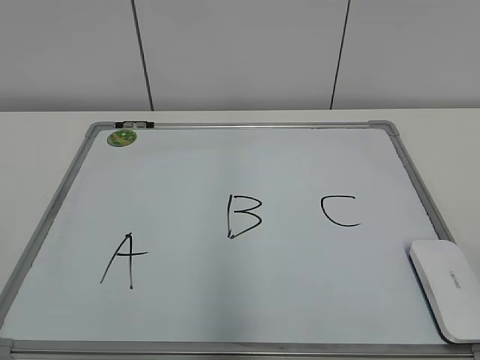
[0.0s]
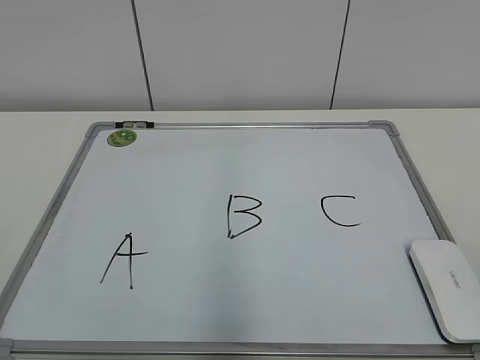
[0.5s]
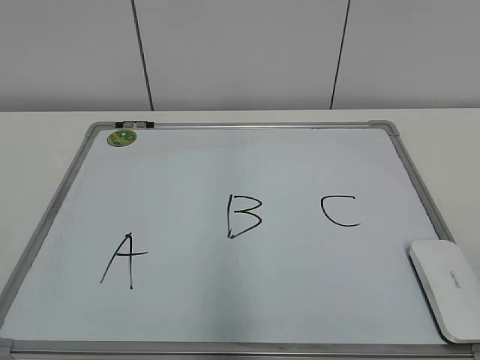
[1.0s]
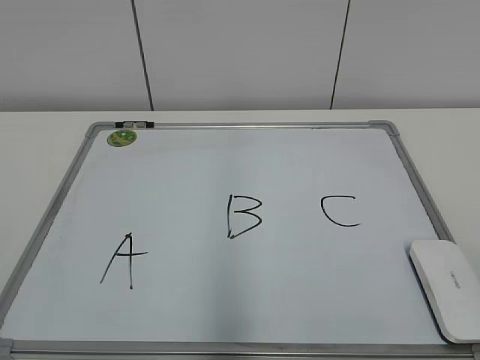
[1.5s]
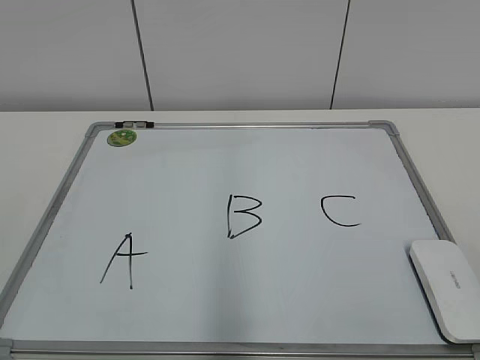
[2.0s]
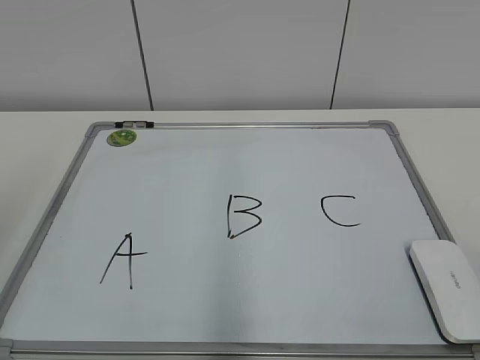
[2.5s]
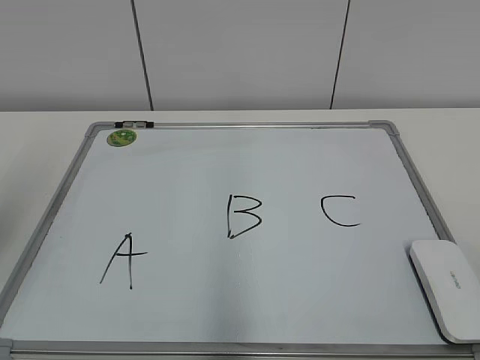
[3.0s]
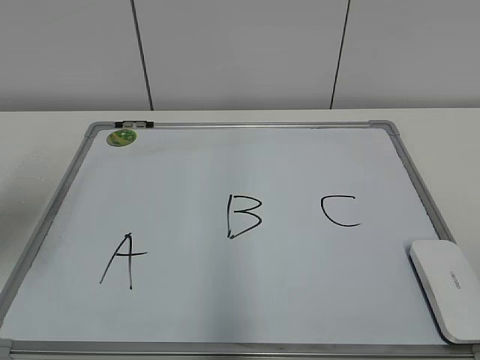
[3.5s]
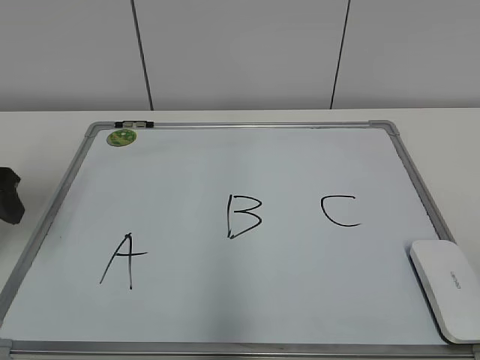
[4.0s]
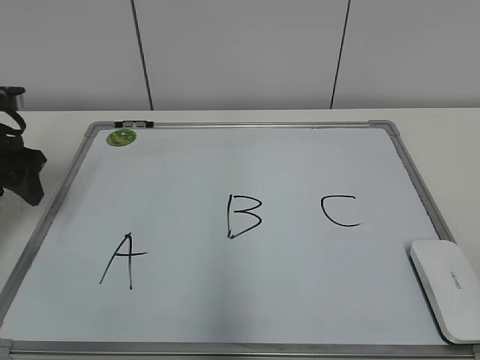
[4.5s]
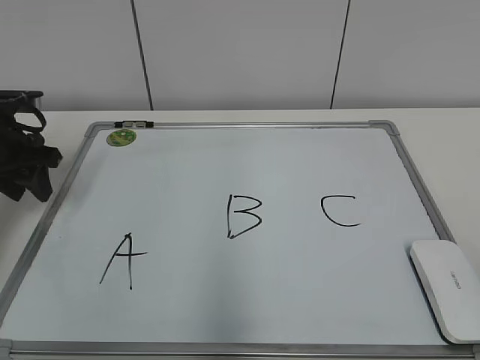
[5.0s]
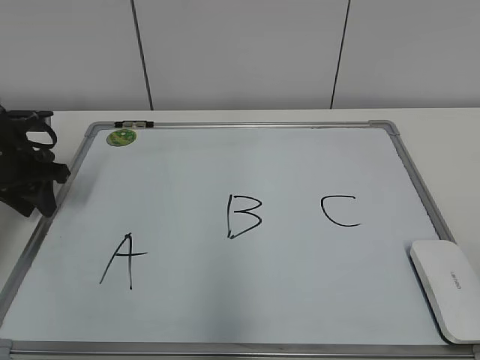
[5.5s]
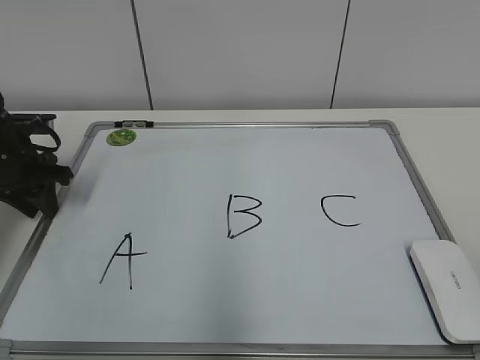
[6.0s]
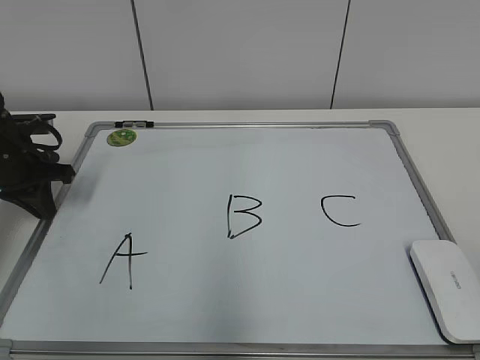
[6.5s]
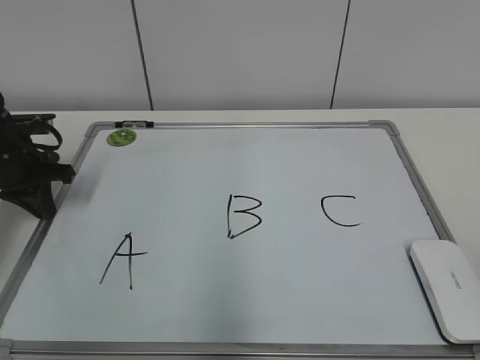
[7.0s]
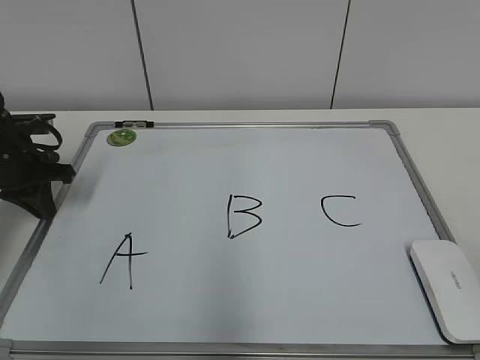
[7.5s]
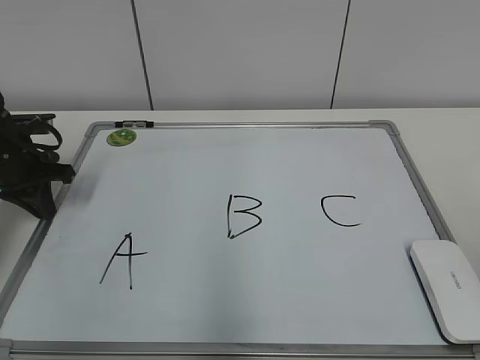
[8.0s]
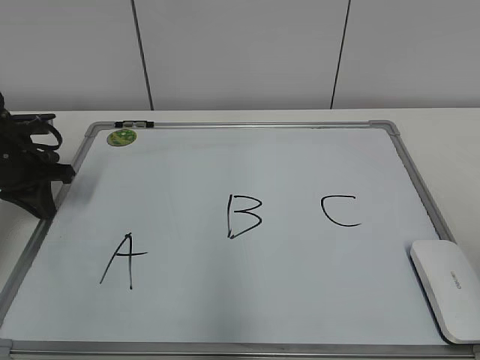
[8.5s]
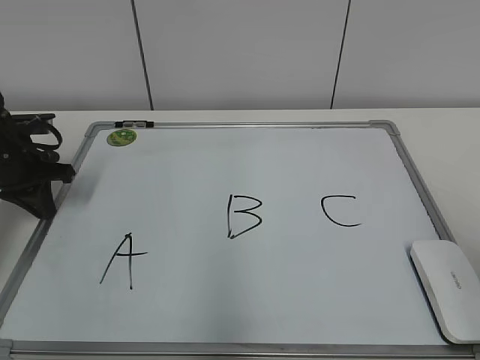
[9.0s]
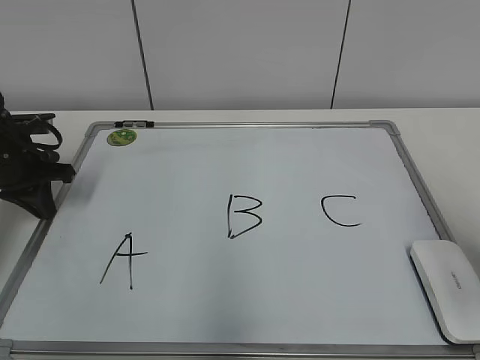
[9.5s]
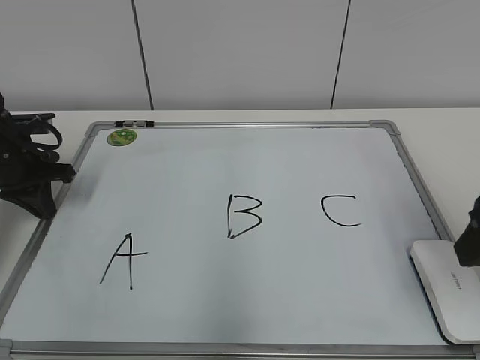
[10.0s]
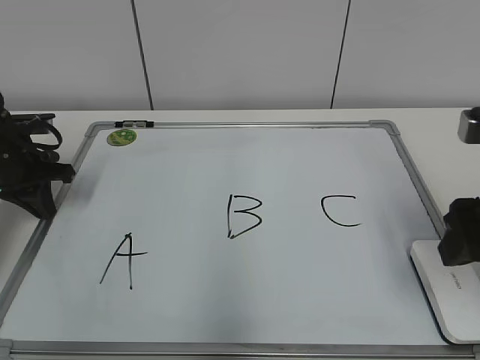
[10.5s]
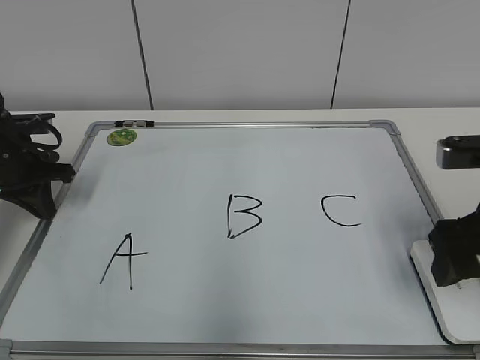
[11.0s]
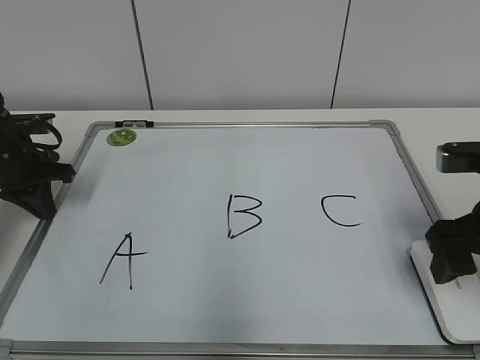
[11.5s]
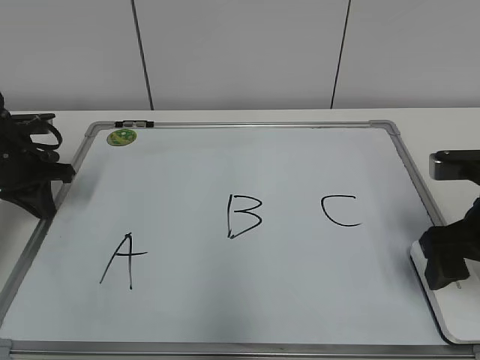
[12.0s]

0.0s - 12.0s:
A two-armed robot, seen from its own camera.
Task of the whole recording: pick up the eraser on the blackboard and erase the letter "B".
Step, 0.0s - 6.5s: Hold the drawing board steady with your left hand.
2.0s - 4.0s: The left gripper goes about 30 cm forward.
4.0s - 6.0s: The left gripper moves forward and downward, some 15 cm, and closes its fingers.
8.0s - 10.0s: The right gripper heads forward, covering roughly 15 cm.
10.0s - 12.0s: The right gripper is displaced downward and forward by roughly 10 cm.

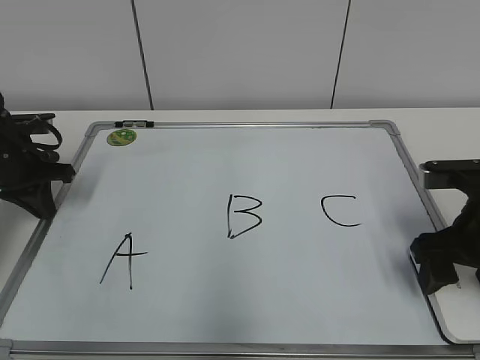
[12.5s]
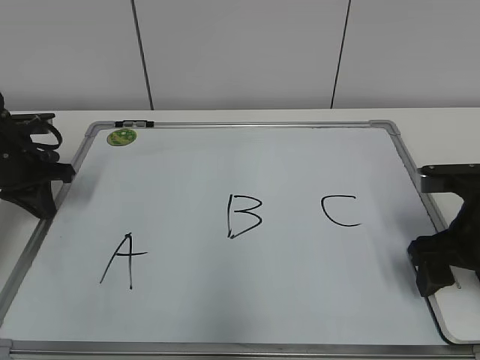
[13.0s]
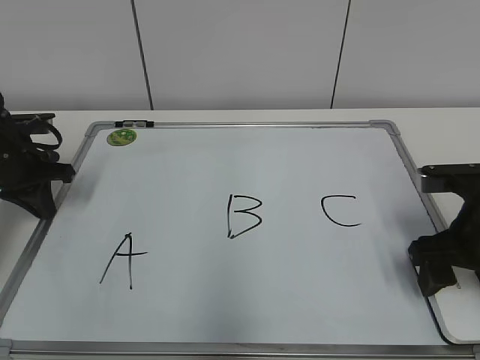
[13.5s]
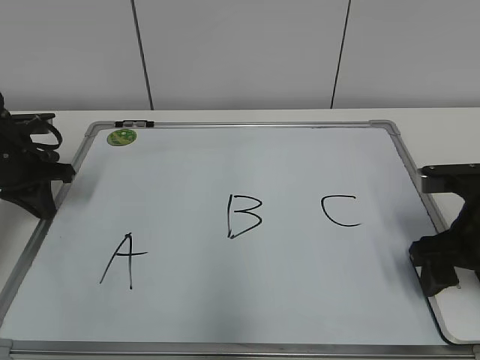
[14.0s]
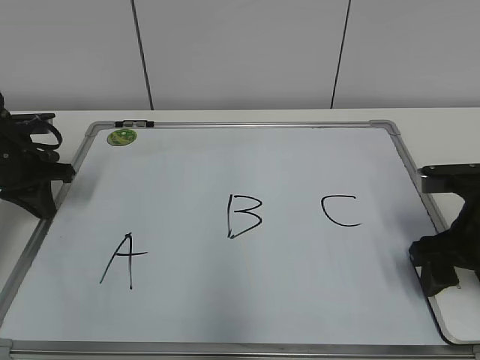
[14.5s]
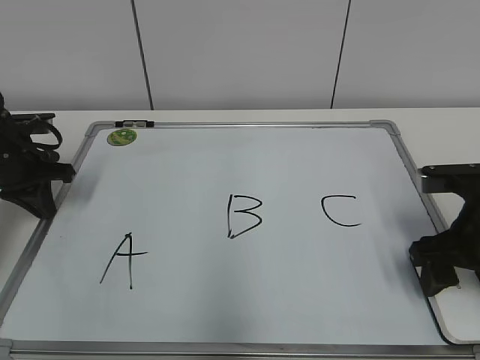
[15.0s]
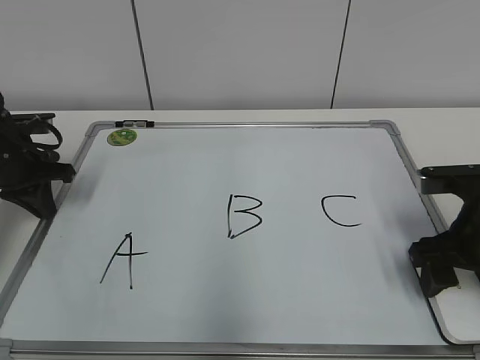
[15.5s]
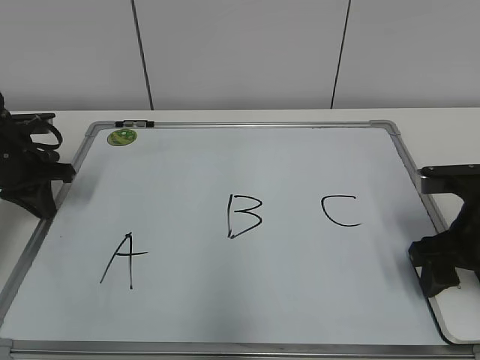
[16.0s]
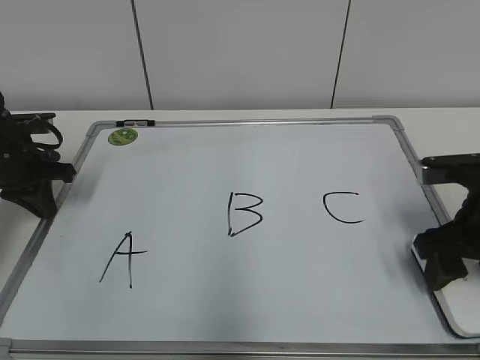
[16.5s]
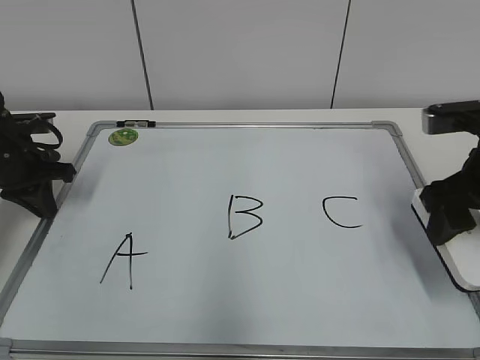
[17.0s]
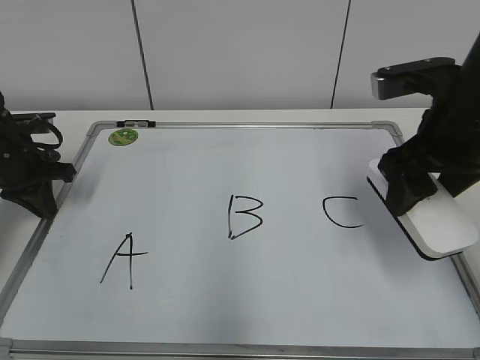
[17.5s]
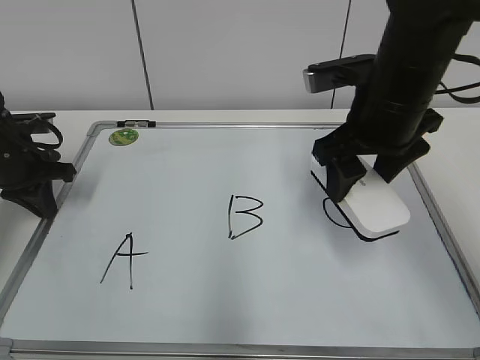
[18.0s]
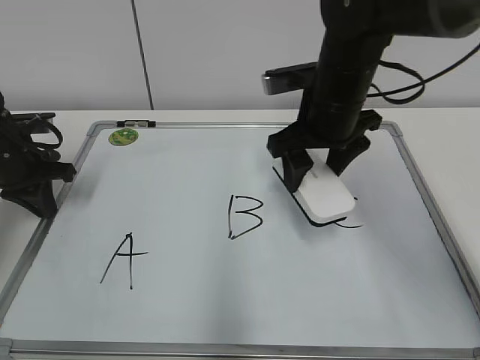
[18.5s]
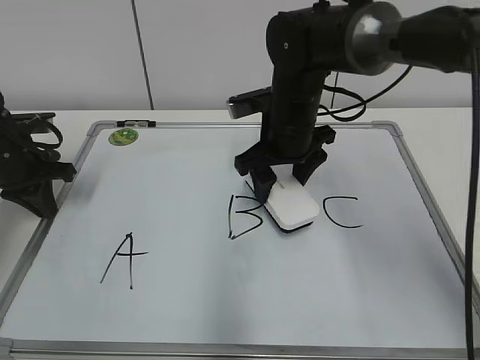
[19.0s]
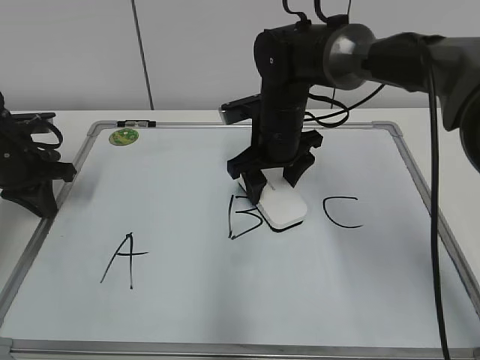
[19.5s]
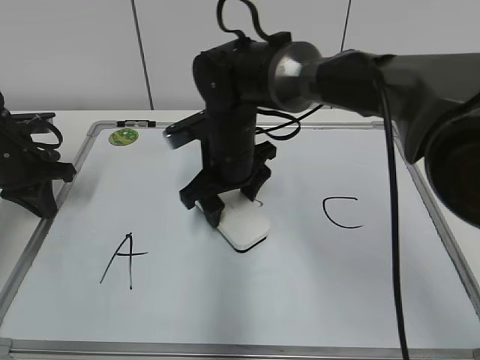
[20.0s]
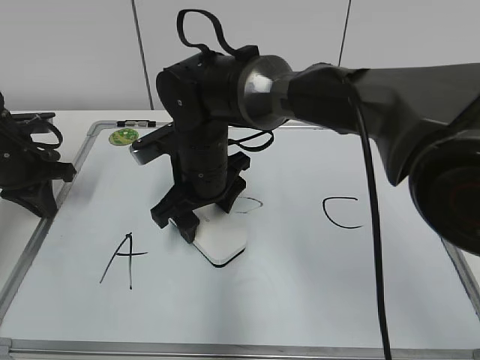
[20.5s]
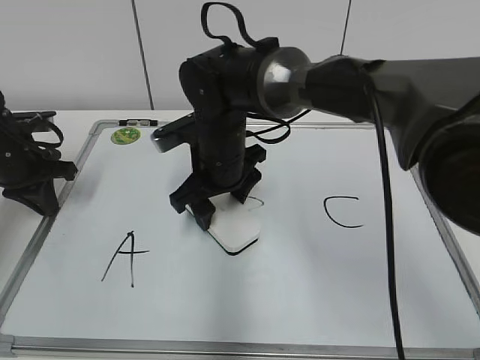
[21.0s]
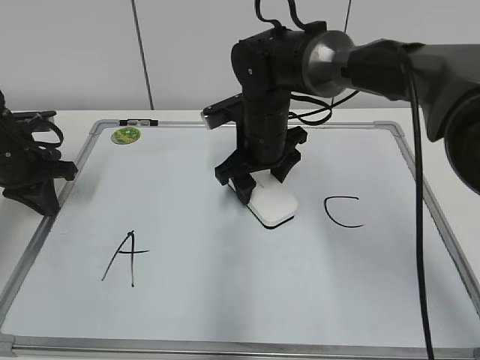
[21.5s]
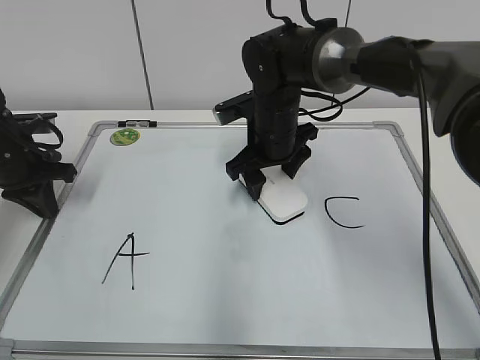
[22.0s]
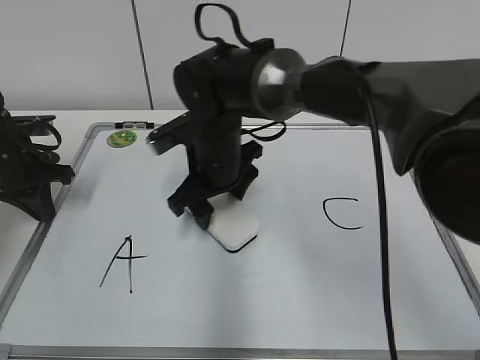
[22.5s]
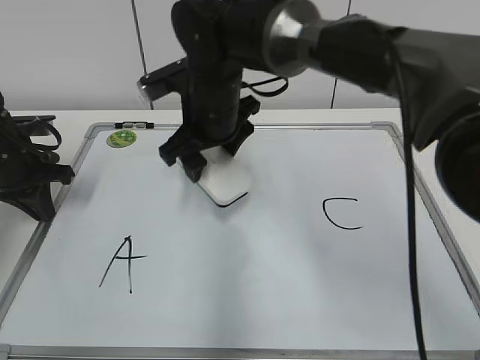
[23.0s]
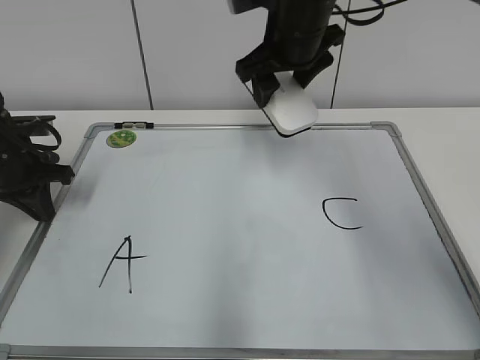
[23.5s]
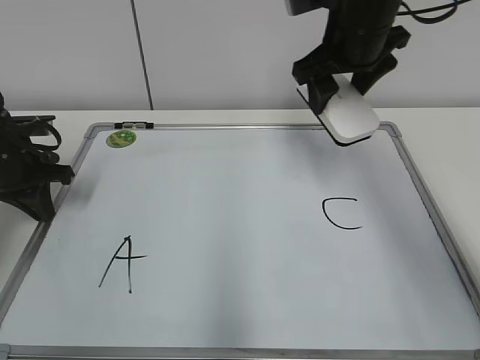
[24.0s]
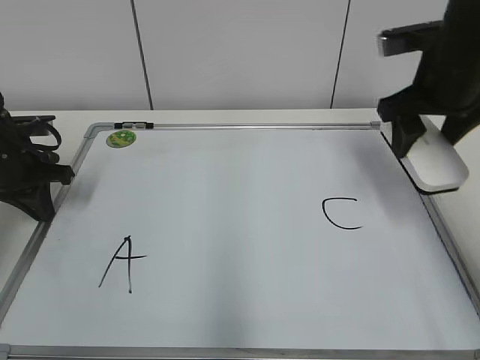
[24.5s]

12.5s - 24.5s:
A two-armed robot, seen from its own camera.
Task of the whole recording: pick up the eraser on the blackboard and erase the letter "B".
Step, 16.5s - 22.0s: Erase the letter B with your right hand.
12.5s - 16.5s: Both grippers stay put.
16.5s - 18.5s: The right gripper travels to the left, forward and upward by approximately 20 cm.
18.5s - 20.5s: The right gripper shifts roughly 15 cm to the left and downward.
20.5s - 22.5s: The right gripper reaches roughly 10 cm to the right, then returns.
22.5s - 24.5s: The right gripper heads to the right and upward, covering approximately 25 cm.

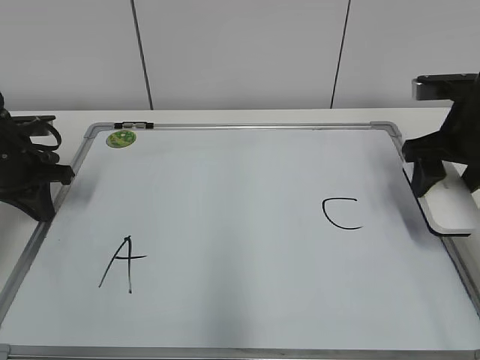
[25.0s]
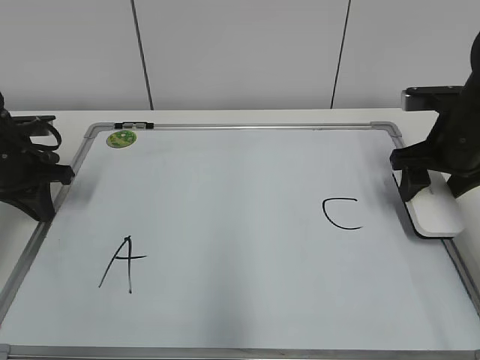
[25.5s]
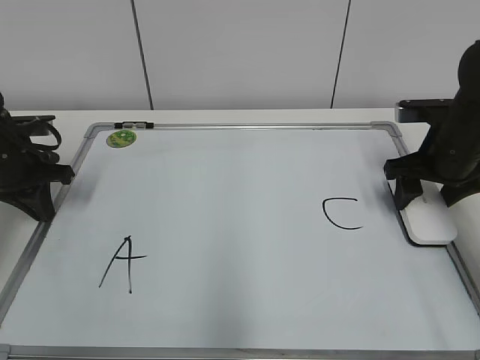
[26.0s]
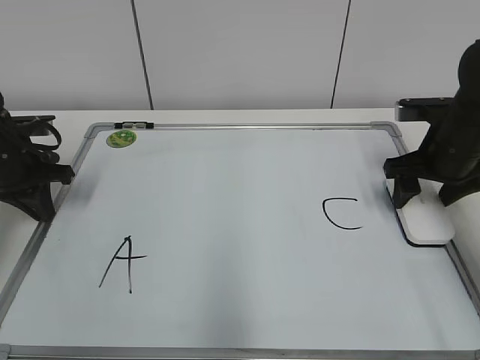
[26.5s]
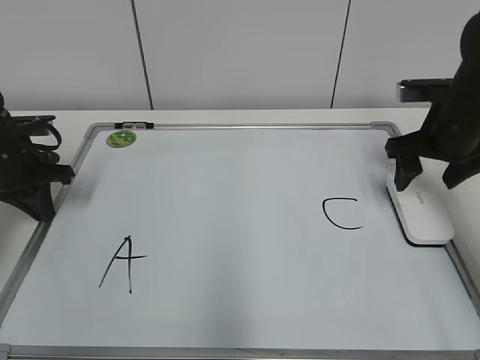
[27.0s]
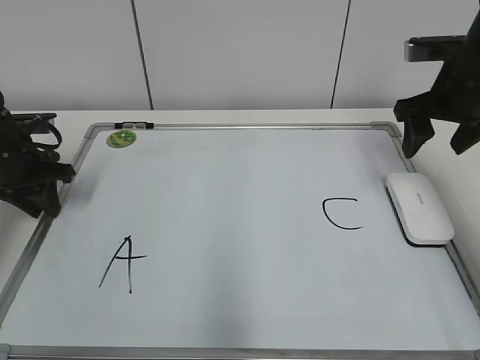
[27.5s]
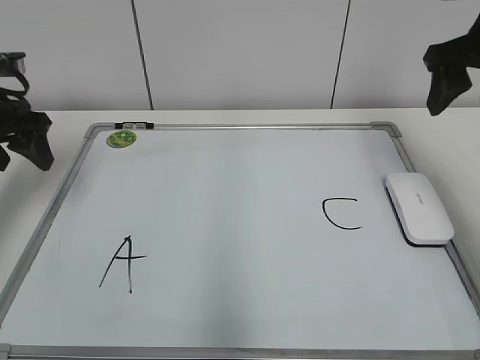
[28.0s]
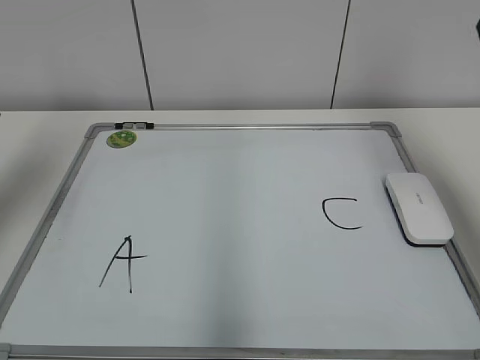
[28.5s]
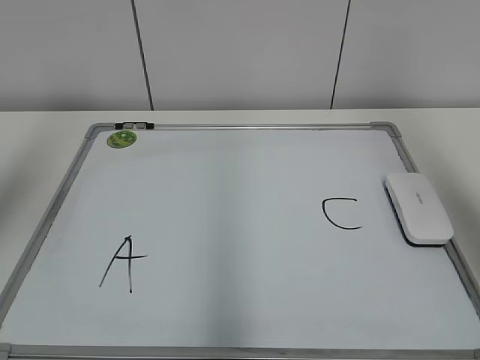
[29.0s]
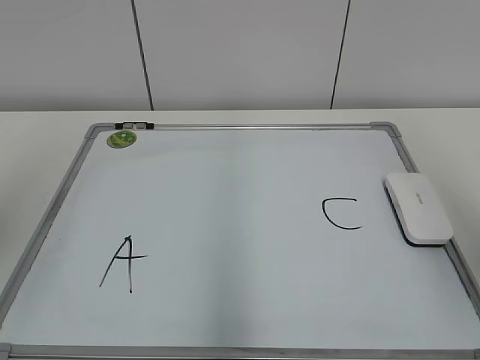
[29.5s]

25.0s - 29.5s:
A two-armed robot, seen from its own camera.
Task of the whole recording: pick up the eraser on the blackboard and erase the letter "B".
25.0s - 27.0s: The grippers make only small movements.
27.0s - 29.5s: The left gripper travels upward and backward by some 35 cm, and opens its fingers, while the right gripper goes approximately 35 cm backward and upward.
